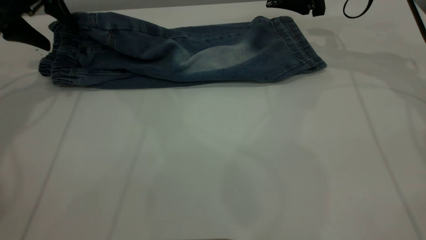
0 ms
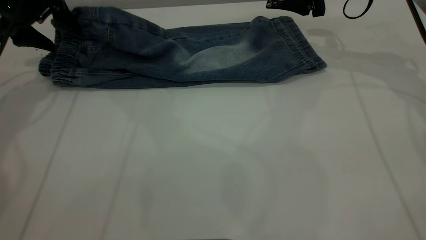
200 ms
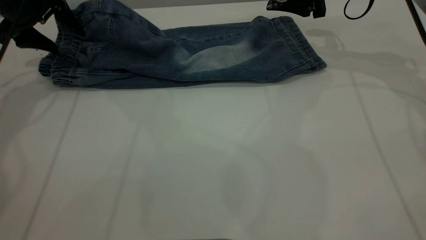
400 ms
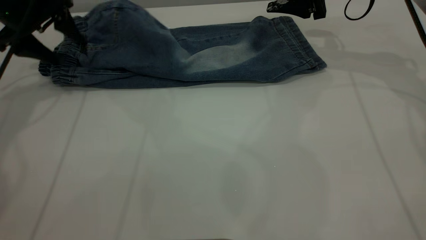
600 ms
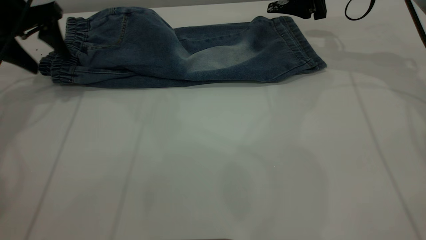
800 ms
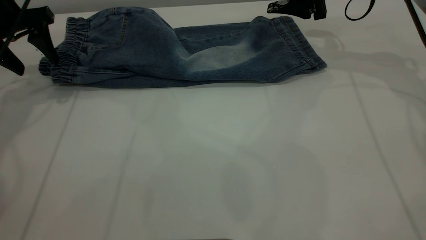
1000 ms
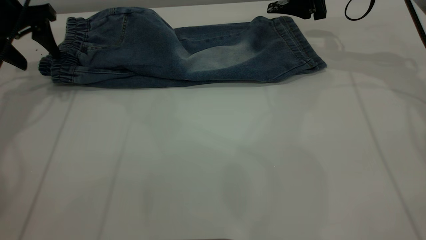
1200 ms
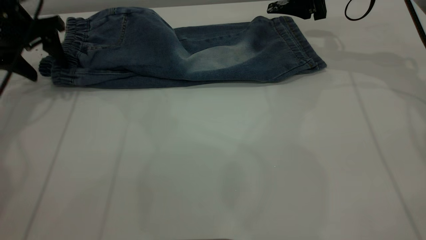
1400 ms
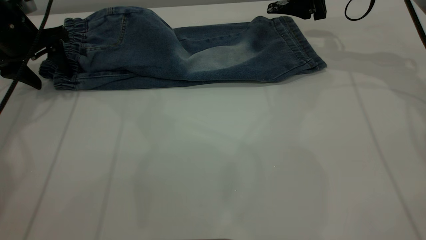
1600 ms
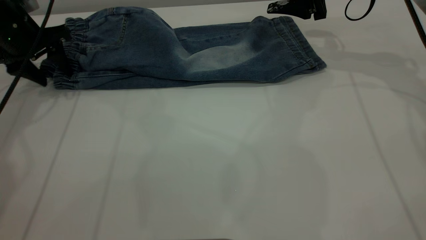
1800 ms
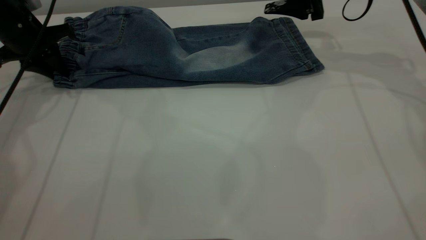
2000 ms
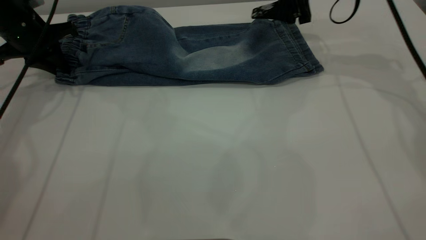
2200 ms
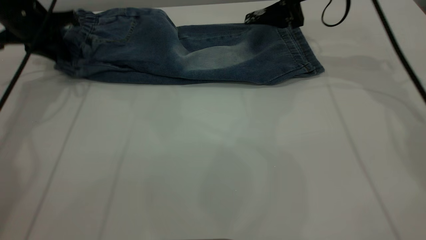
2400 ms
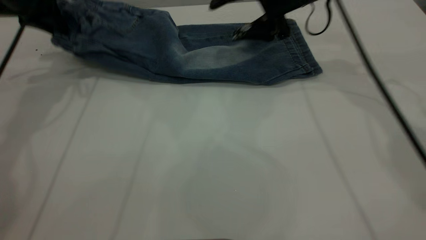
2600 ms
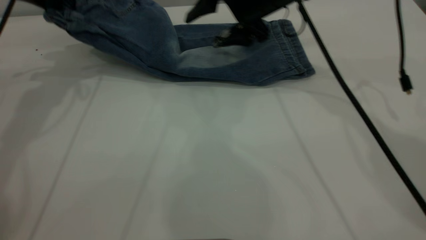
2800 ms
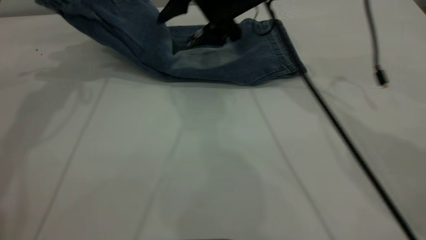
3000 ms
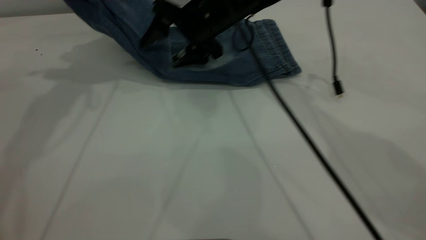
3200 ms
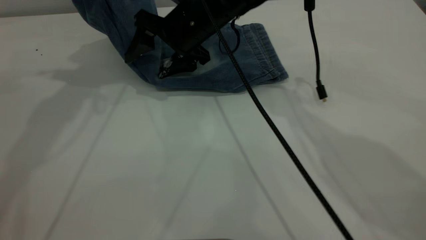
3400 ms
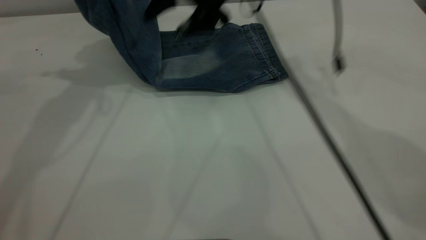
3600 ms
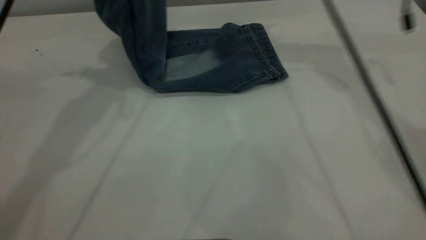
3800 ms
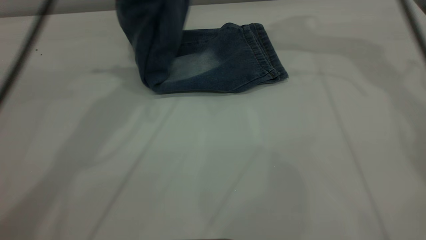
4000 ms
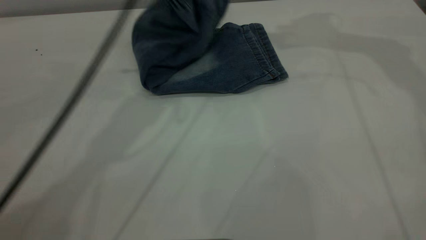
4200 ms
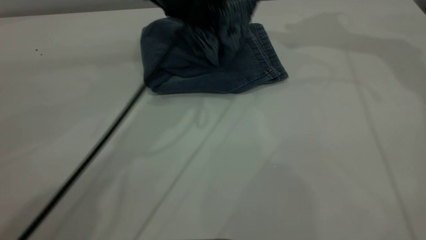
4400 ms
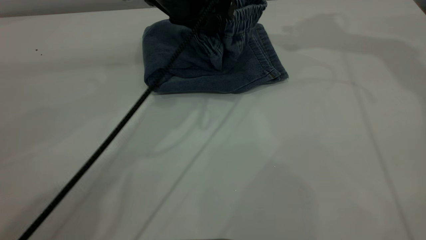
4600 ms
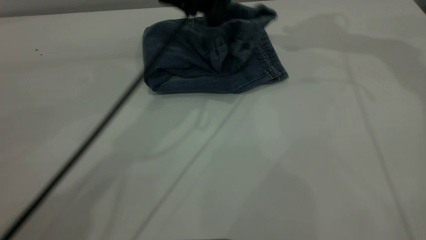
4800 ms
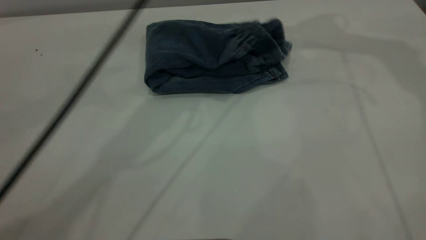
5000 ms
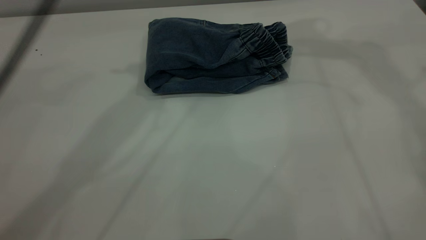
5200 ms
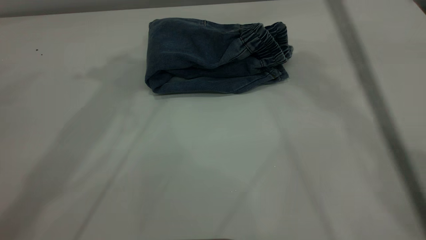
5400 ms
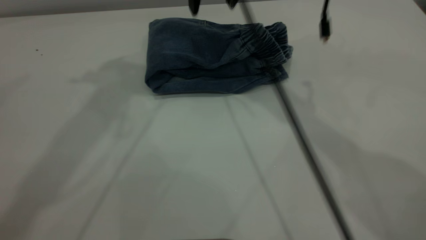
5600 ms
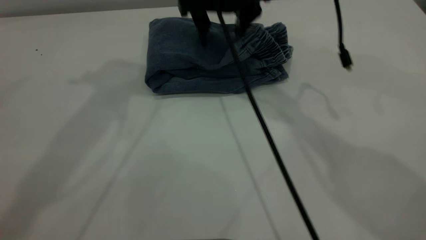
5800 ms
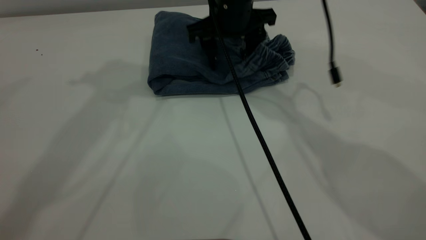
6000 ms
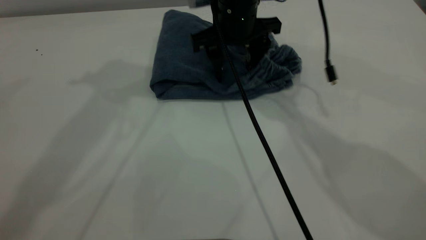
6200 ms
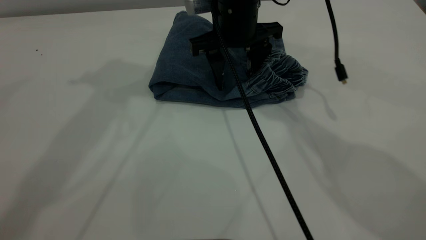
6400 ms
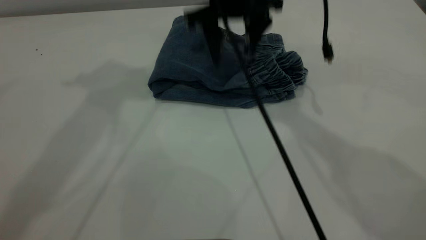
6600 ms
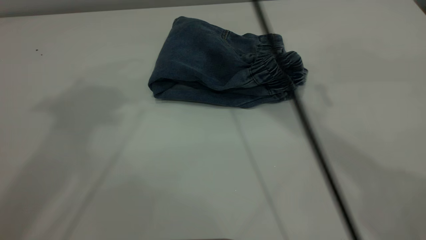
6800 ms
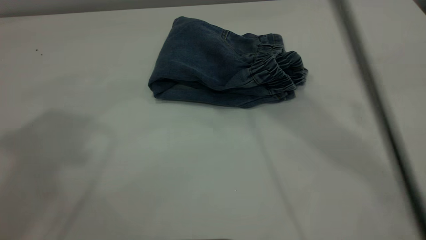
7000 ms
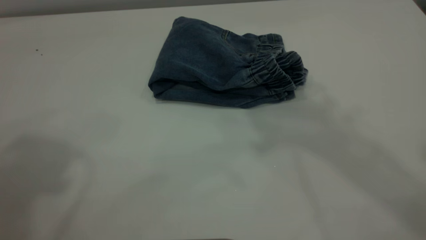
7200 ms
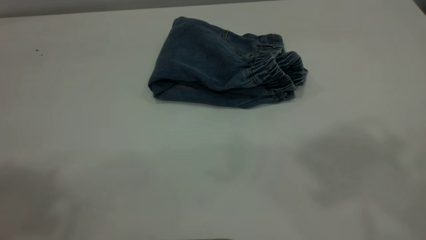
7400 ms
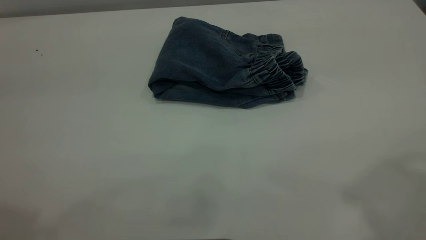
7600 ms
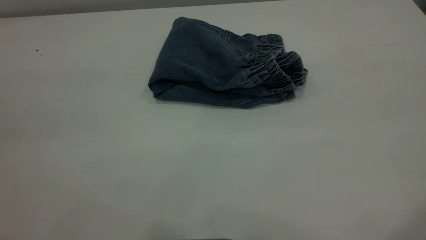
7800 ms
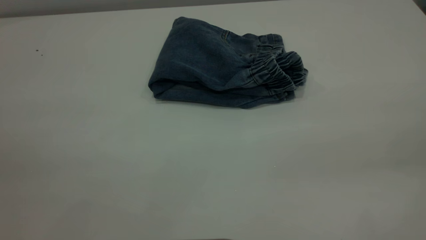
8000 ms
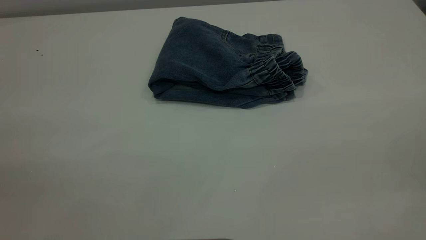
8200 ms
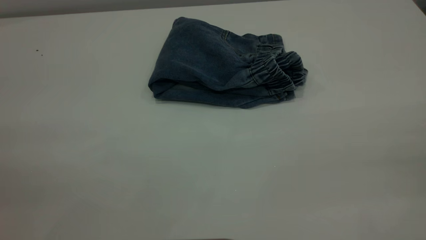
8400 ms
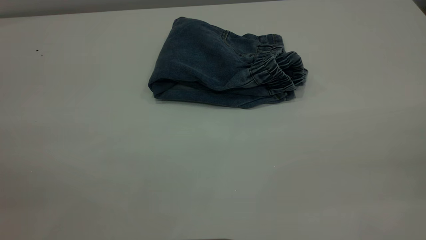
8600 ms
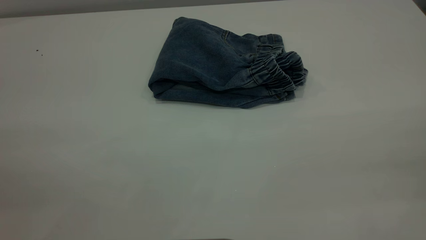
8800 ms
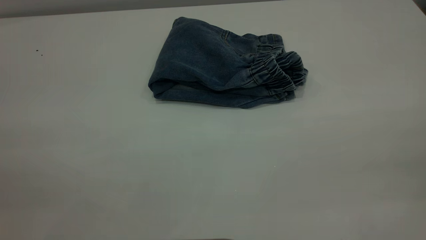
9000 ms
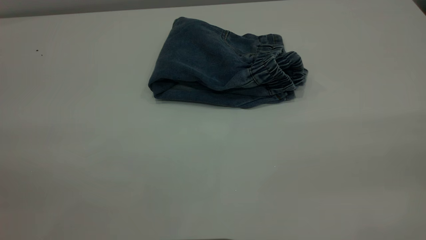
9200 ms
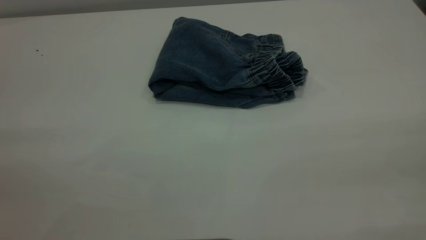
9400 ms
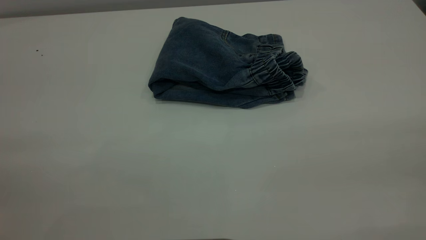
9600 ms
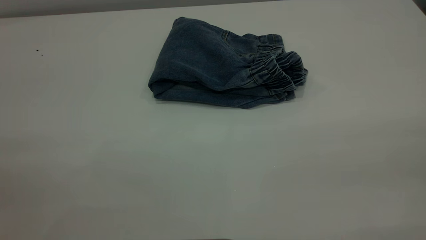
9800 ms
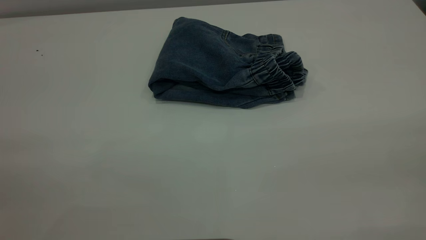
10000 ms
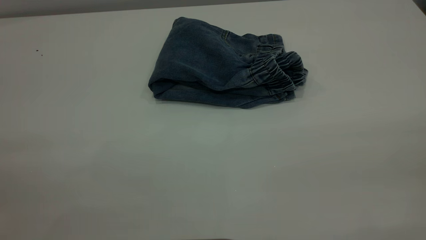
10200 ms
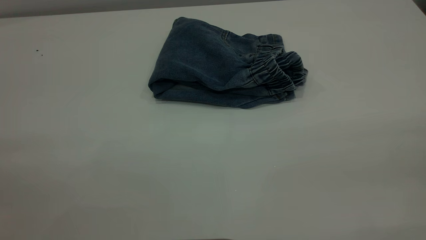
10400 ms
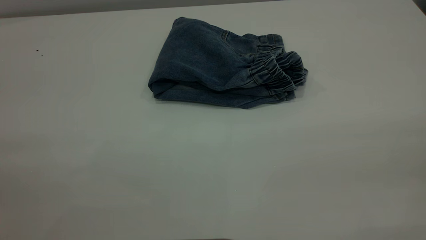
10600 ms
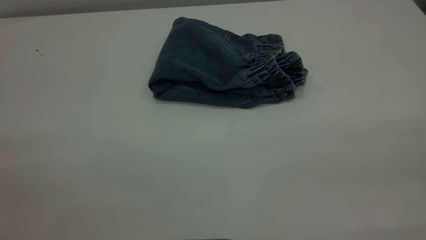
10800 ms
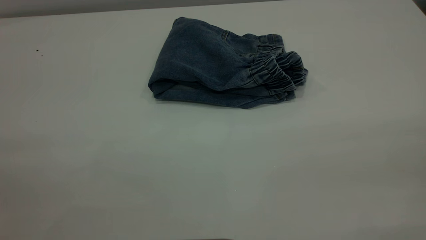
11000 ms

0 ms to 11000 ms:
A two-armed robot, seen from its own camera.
Step, 0 ms to 5200 ms: Fold the pants from left to right.
0 ms to 1600 ms: The left gripper travels downward by roughly 5 cm.
1600 ms to 3200 ms: The left gripper is displaced upward and to the right by approximately 20 cm, and closes. The right gripper travels to the left by about 20 cm.
3200 ms to 4800 ms: The right gripper goes approximately 30 cm upward and to the right, while the left gripper travels to the right by roughly 20 cm, and opens up.
4800 ms to 6200 ms: The left gripper heads upward and to the left, covering some 20 cm; the right gripper goes approximately 30 cm downward and to the left.
6200 ms to 7800 ms: The left gripper moves backward, some 30 cm; the right gripper shifts some 50 cm backward, upward and to the right.

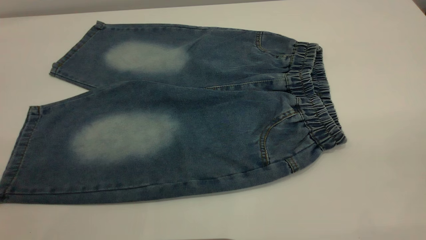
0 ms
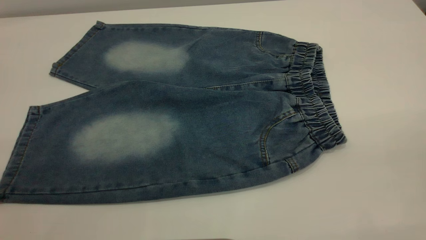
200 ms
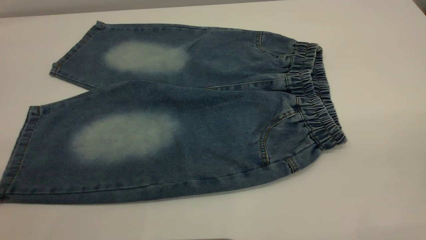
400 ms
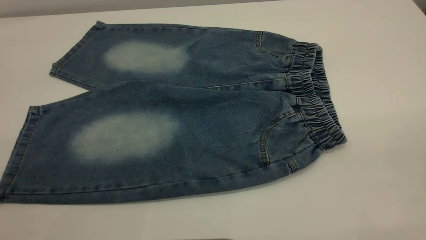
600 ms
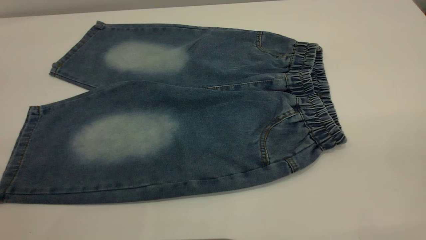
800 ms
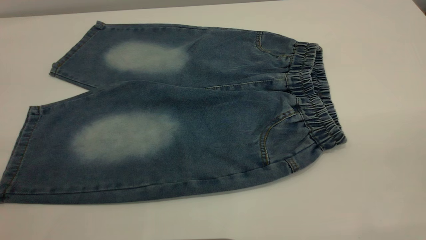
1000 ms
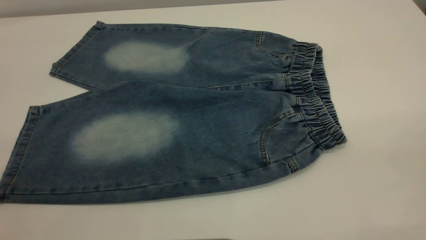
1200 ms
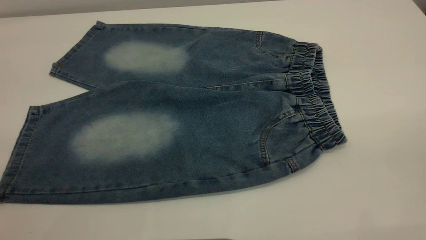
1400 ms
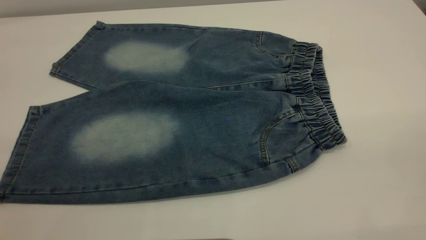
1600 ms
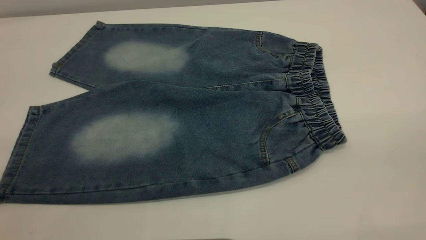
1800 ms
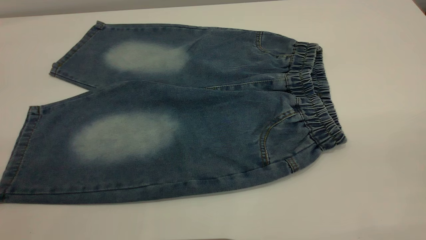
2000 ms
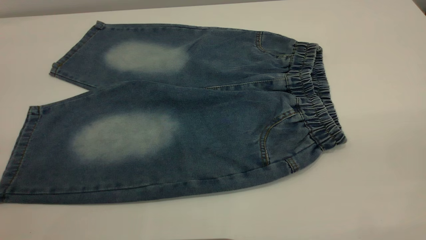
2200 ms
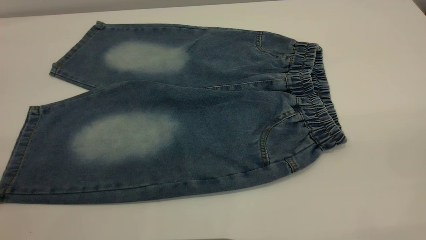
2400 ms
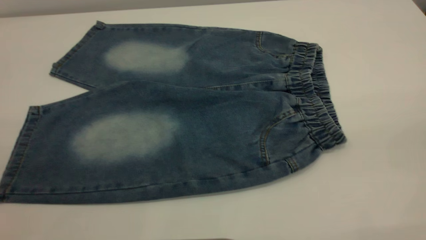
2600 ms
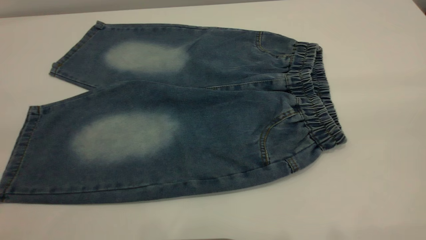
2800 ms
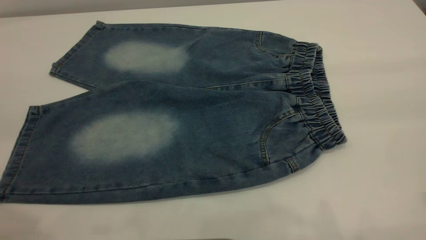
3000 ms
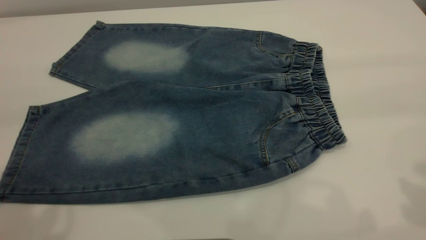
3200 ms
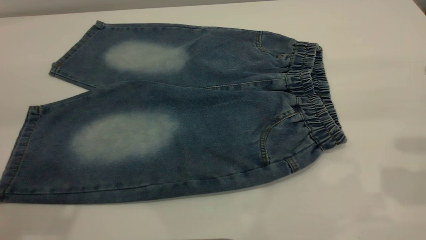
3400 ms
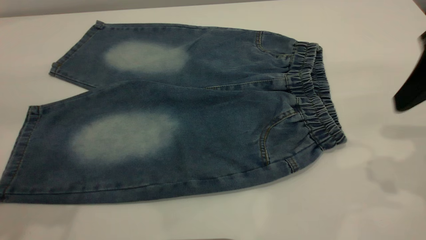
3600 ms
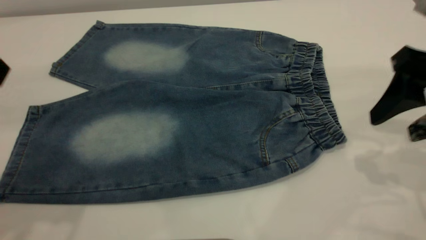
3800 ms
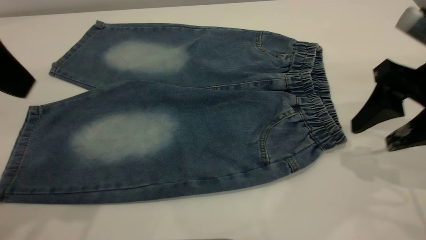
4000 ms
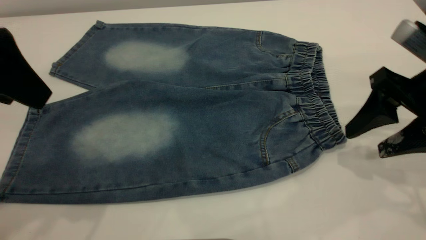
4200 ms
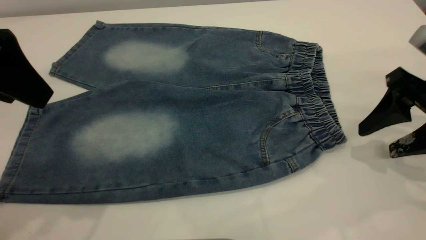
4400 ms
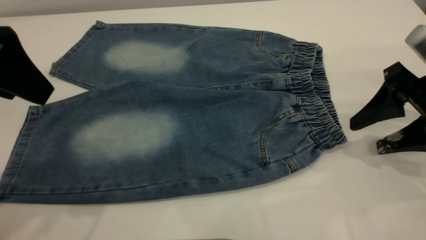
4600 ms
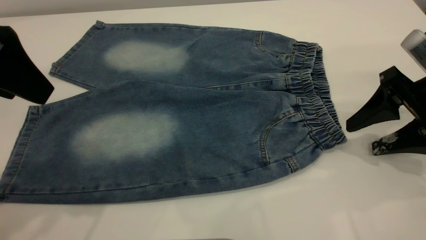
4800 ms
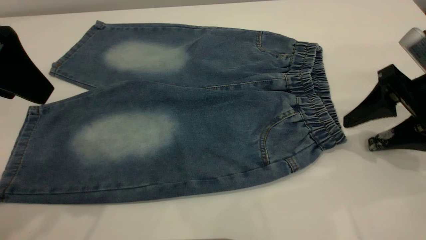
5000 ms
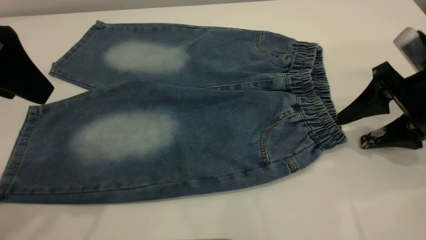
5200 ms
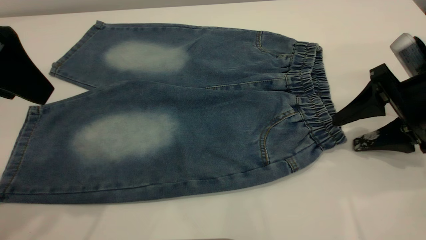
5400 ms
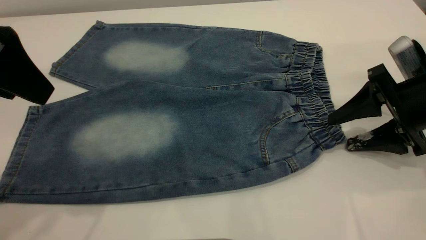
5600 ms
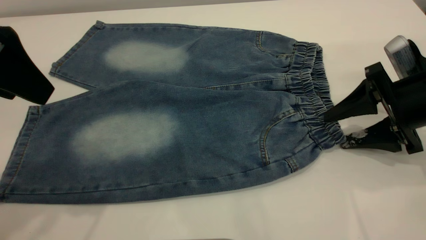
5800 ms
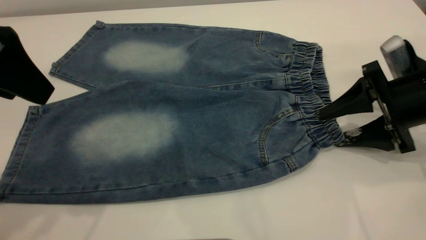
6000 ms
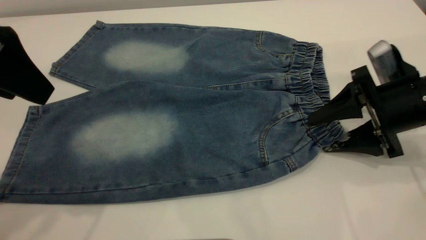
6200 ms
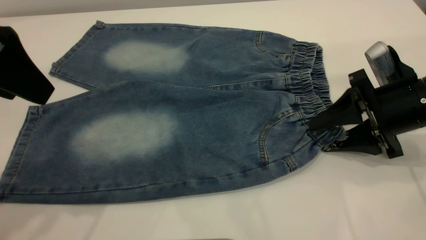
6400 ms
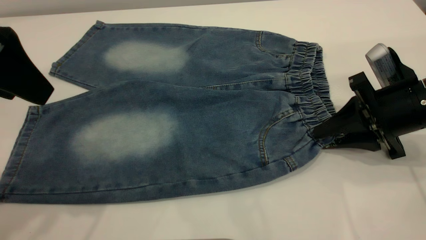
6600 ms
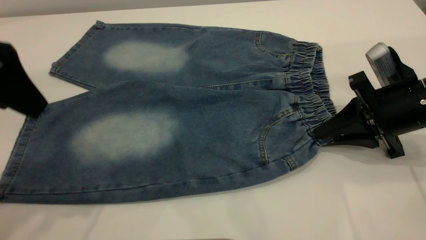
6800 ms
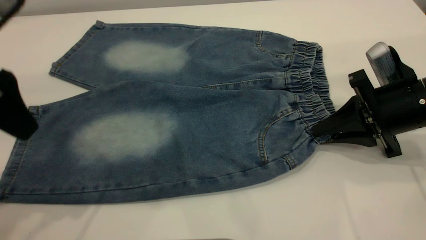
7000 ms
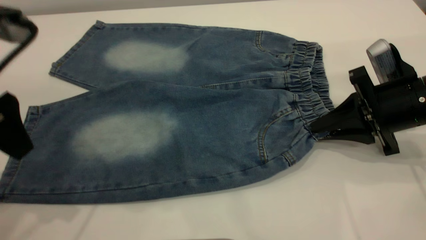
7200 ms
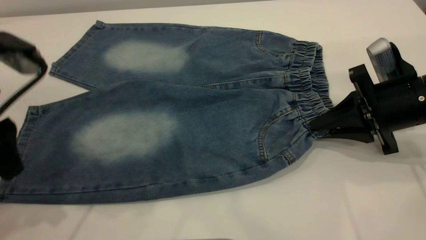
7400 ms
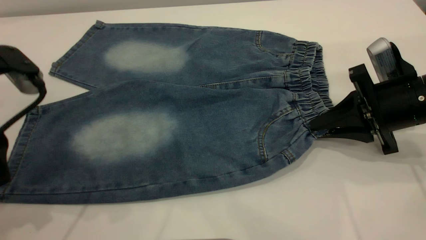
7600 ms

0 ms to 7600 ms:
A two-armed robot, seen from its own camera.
0 ms to 1600 ms: Both grippers stay put.
3000 ms to 4600 ms: The right gripper heads downward and forward, covering roughly 25 cm. Meanwhile the left gripper heads forward and downward, covering some 15 cm.
4600 ms to 6000 ms: There are only small adjustments of the grippers.
6000 ms to 7600 ms: The right gripper closes its fingers; the left gripper heads downward, covering approximately 10 cm.
